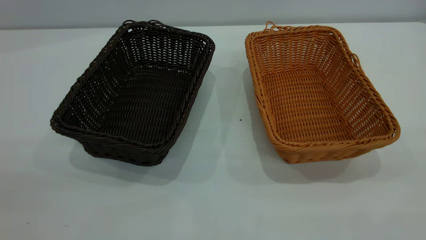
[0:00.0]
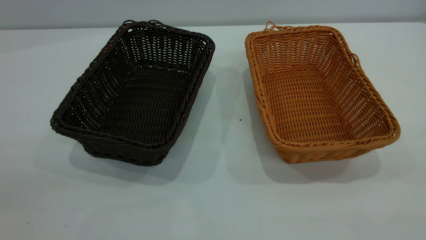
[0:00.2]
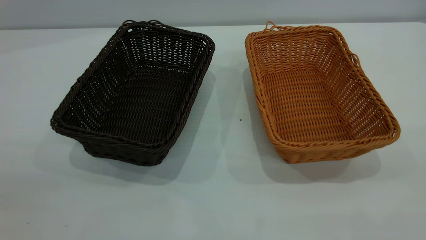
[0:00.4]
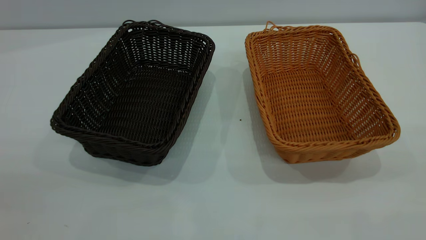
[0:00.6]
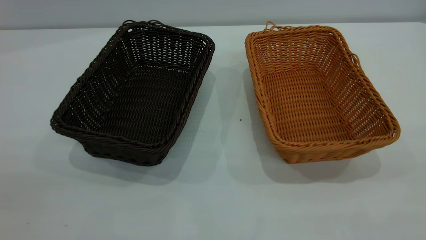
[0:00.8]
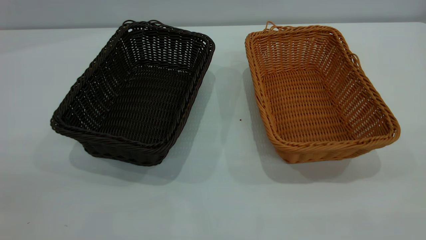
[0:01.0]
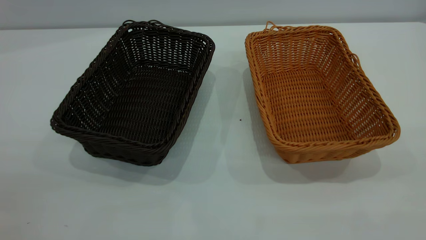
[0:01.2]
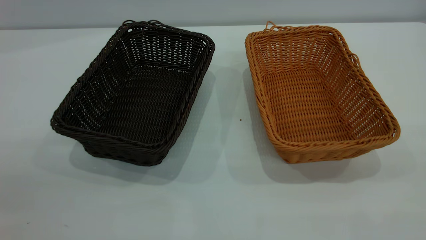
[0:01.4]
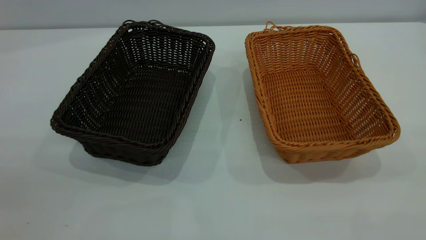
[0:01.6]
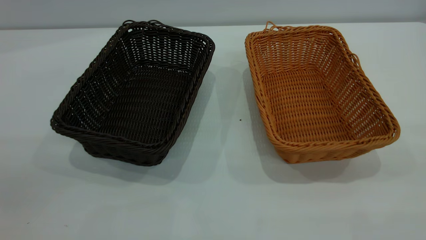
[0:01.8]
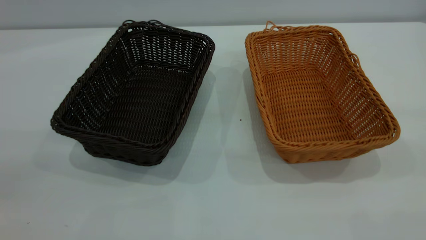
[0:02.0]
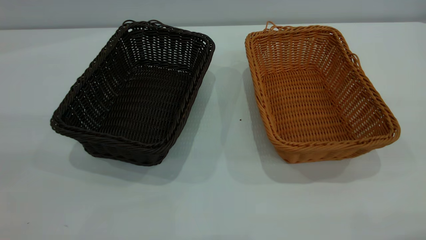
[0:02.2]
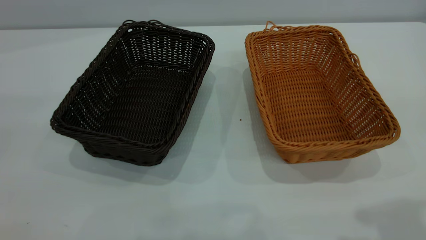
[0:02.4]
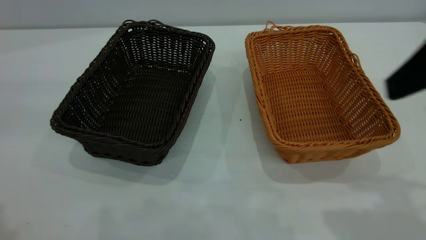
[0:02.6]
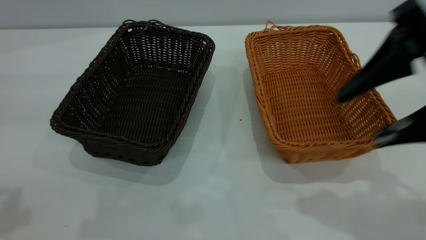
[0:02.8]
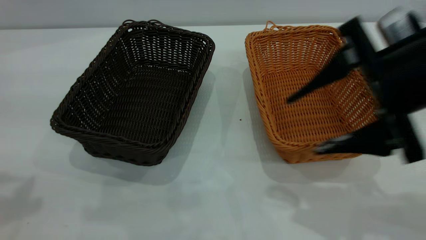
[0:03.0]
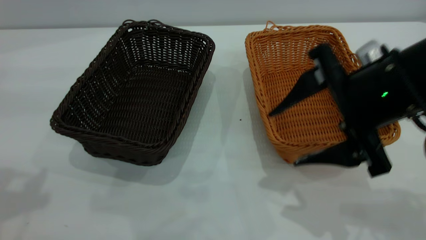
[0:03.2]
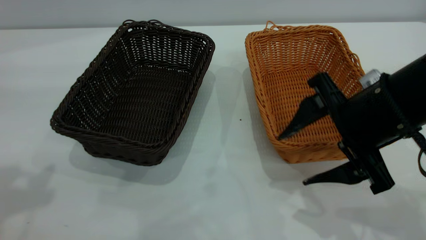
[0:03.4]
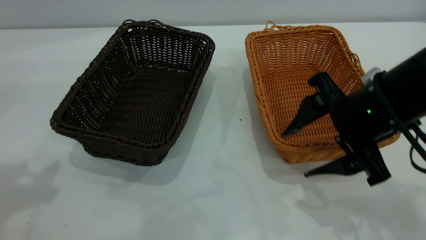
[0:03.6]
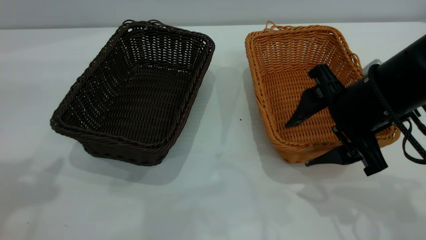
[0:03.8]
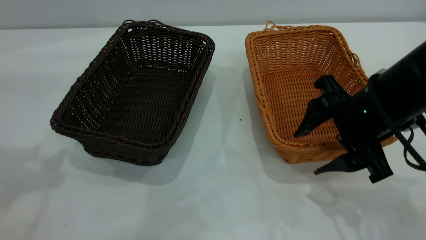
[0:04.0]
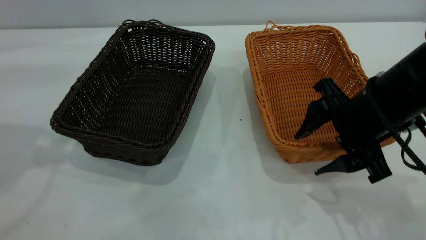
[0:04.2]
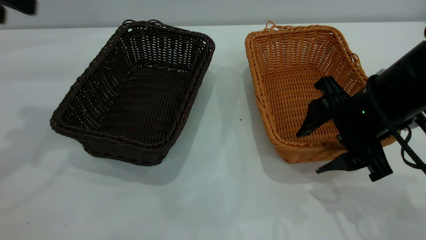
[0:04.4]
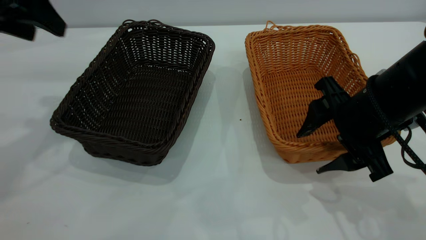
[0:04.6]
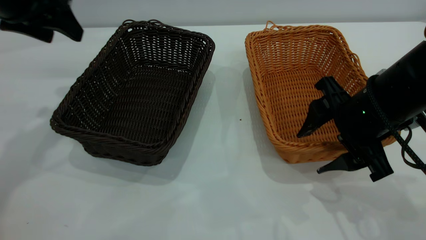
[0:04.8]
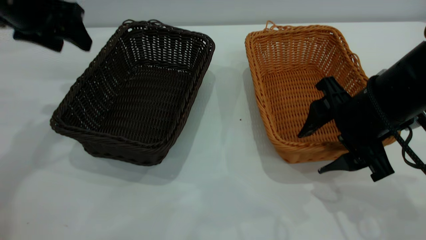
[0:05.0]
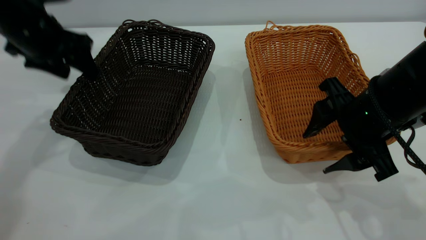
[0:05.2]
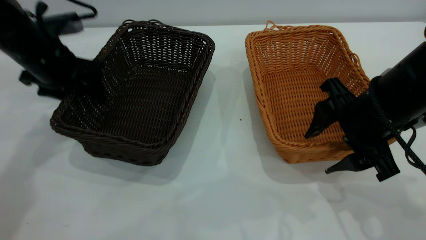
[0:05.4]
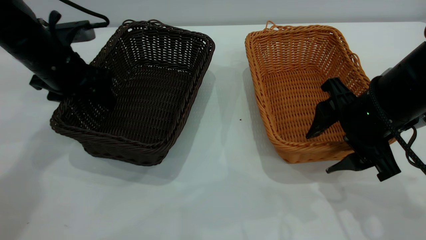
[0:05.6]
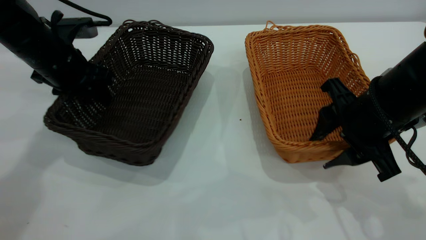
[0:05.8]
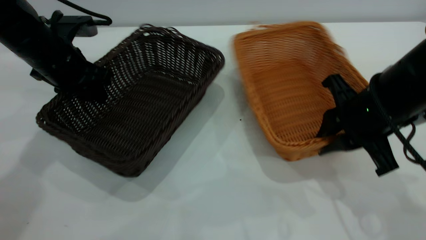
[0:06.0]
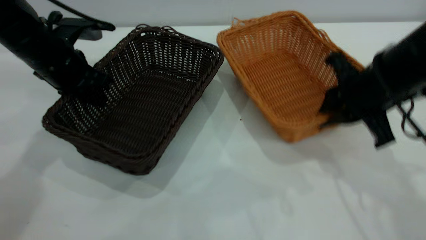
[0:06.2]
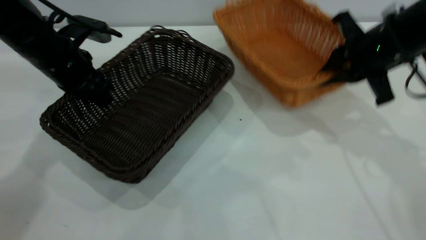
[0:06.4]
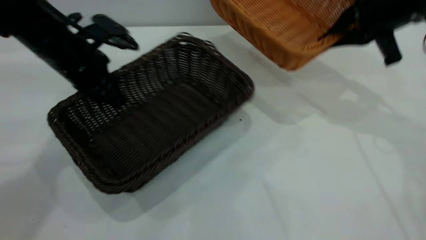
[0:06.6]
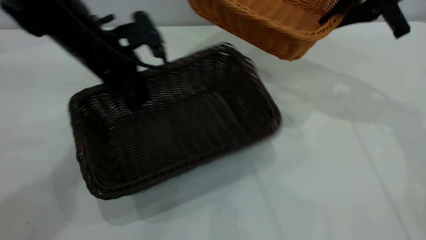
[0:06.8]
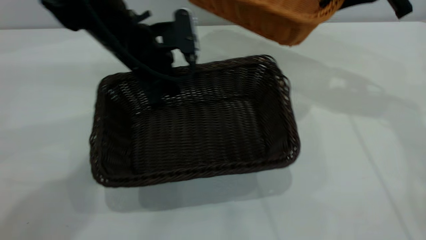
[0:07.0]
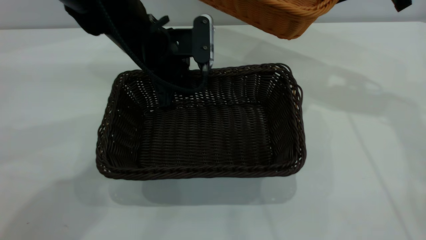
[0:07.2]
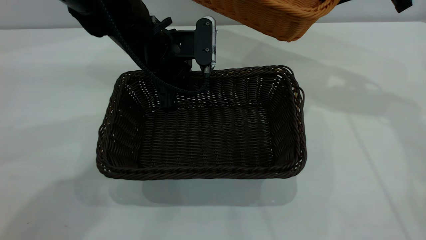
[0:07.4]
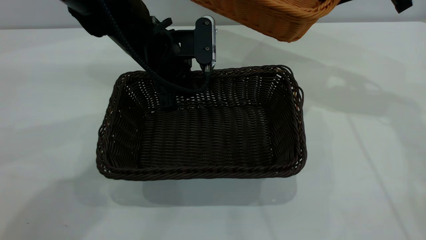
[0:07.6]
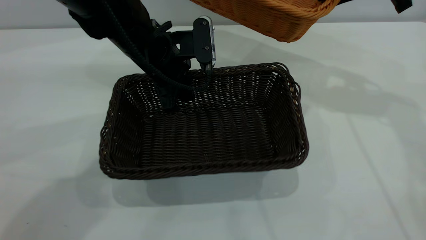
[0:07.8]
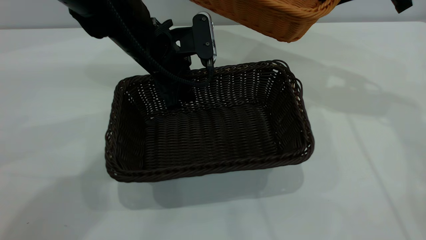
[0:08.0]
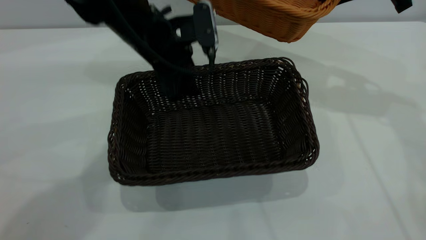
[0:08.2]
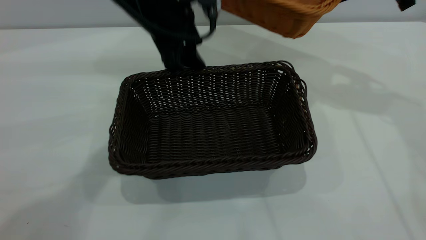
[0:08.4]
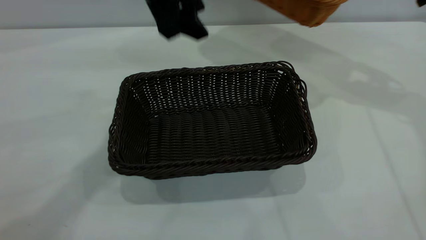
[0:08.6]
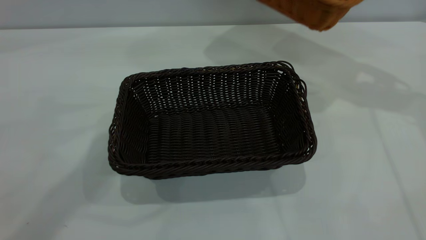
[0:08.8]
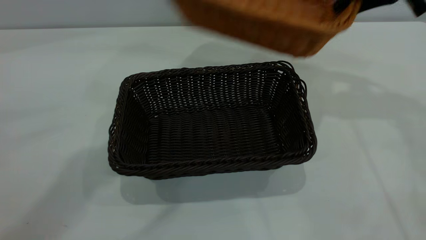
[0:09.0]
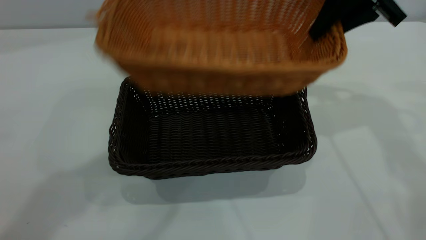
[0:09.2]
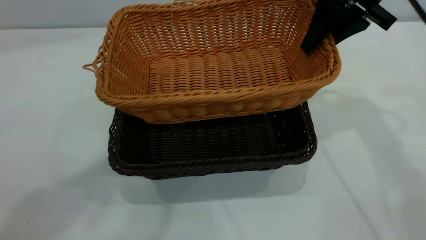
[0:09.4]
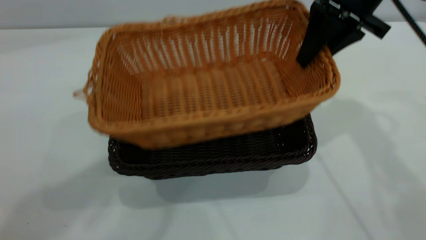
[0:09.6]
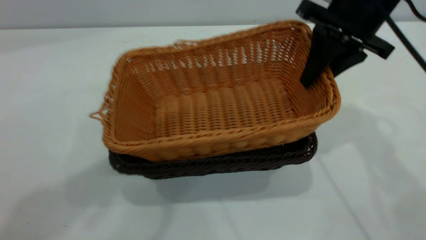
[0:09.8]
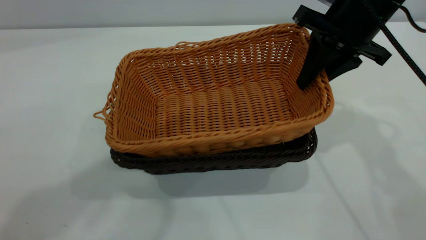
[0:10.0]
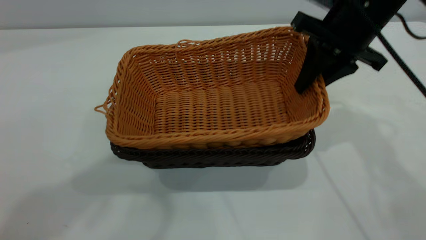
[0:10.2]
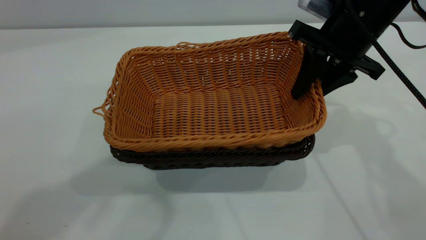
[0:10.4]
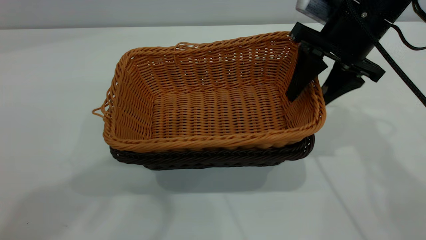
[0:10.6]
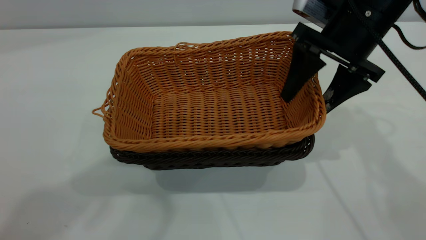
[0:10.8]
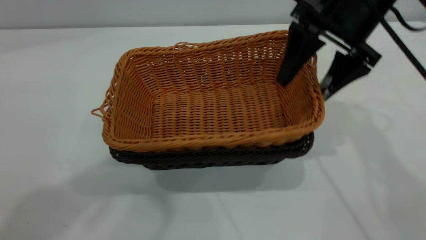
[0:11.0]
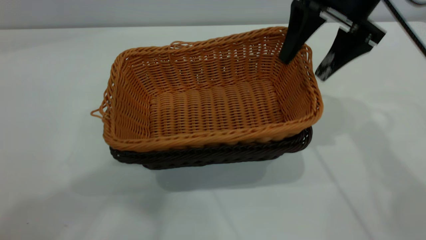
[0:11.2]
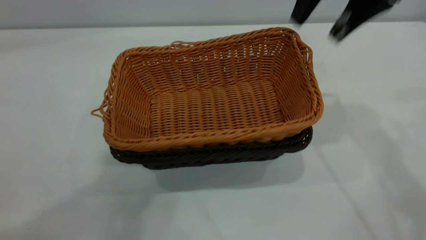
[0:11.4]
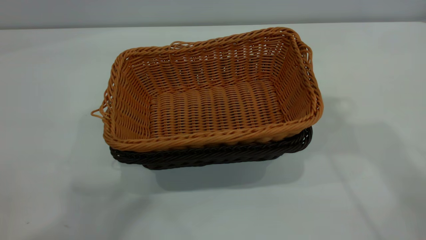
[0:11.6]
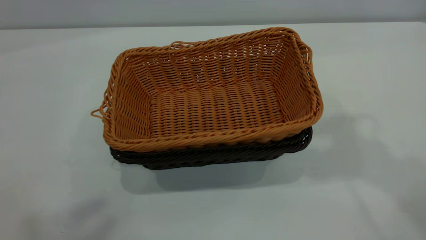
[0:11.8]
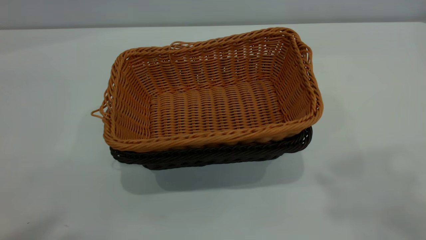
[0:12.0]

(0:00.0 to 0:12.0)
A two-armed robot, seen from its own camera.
Task of the whole recording: the left gripper grasp the black basket and place it in the center of the table, the right gripper grasp the brown basket and place it inside the black one.
Step, 0:00.0 - 0:06.4: Pick up the light basket with the right gripper.
Step, 0:06.6 - 0:08.4: Move the dark basket to the center of view.
Step, 0:08.6 - 0:11.2: Place the light basket on the dark basket.
0:00.0 - 0:01.6: Both grippers stay put.
0:01.6 - 0:03.0: The right gripper is displaced forward, downward and to the left by roughly 30 cm.
0:03.0 - 0:04.4: The left gripper is displaced forward by some 15 cm; the right gripper goes roughly 10 cm downward.
0:04.4 - 0:06.0: The left gripper travels downward by roughly 15 cm, and closes its fingers. The right gripper closes its fingers.
0:06.0 - 0:07.6: The left gripper heads to the right, covering some 15 cm. The right gripper heads forward and upward, covering some 20 cm.
0:07.6 - 0:09.0: The left gripper goes roughly 30 cm upward, and opens.
0:09.0 - 0:10.4: The right gripper moves downward and to the left, approximately 10 cm, while the left gripper goes about 10 cm upward and backward.
0:10.4 - 0:12.0: The right gripper is displaced upward and backward by roughly 40 cm, and opens up. The left gripper shifts roughly 20 cm backward, to the left and upward.

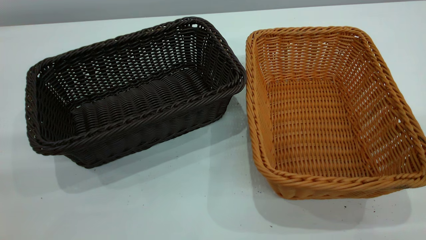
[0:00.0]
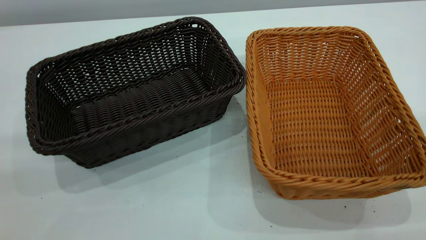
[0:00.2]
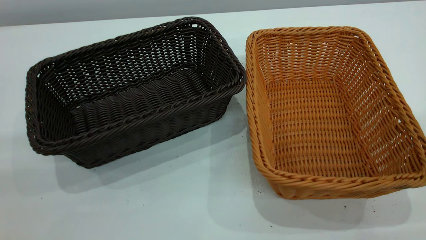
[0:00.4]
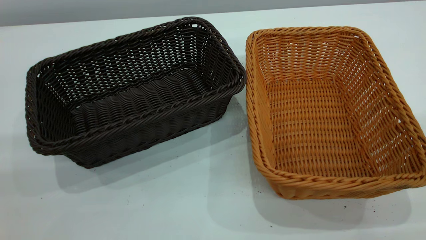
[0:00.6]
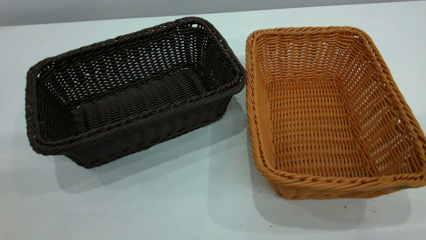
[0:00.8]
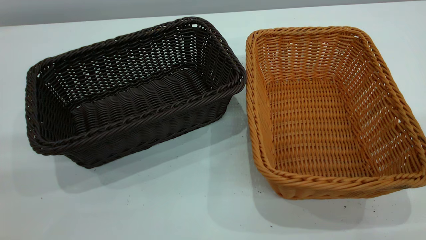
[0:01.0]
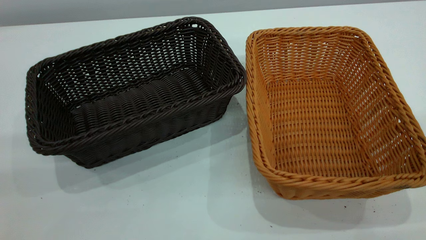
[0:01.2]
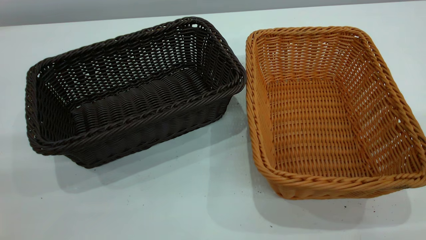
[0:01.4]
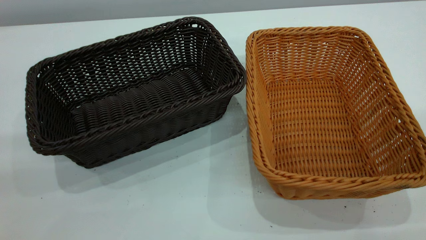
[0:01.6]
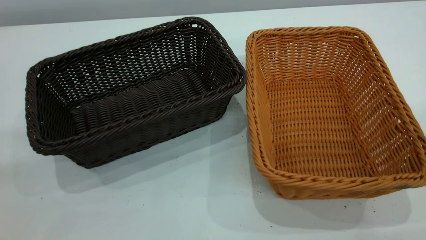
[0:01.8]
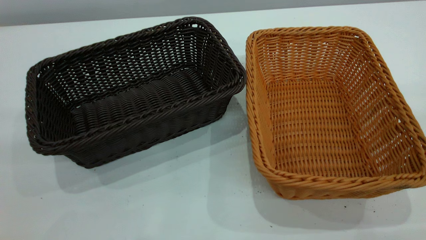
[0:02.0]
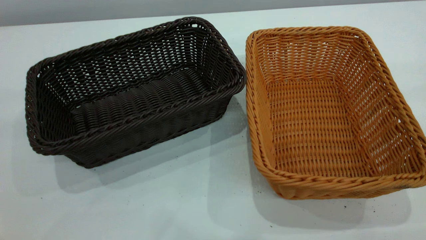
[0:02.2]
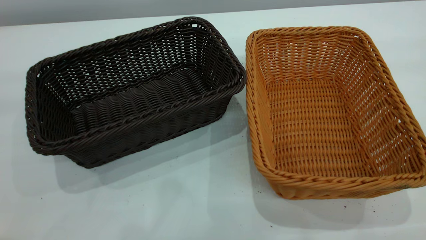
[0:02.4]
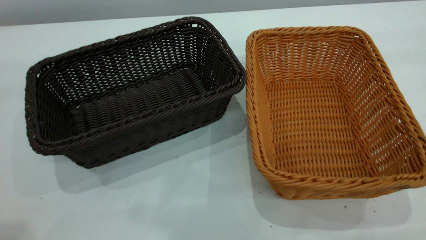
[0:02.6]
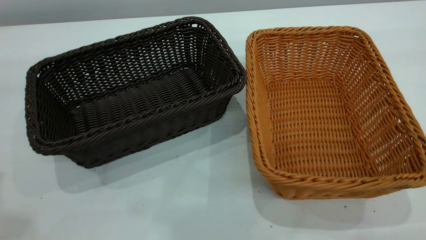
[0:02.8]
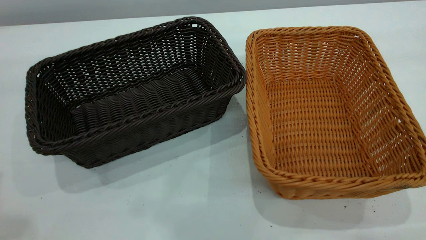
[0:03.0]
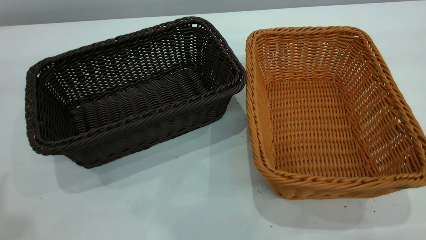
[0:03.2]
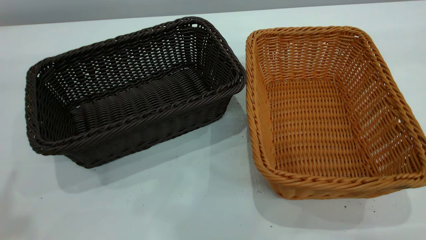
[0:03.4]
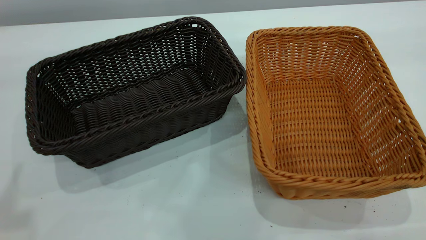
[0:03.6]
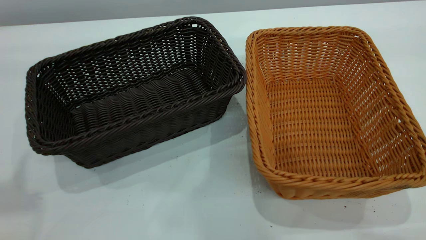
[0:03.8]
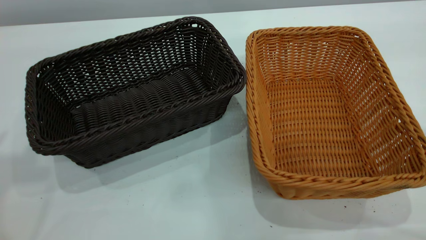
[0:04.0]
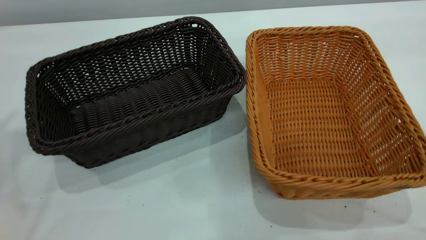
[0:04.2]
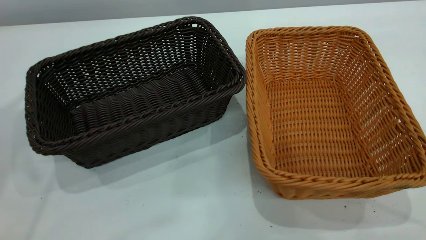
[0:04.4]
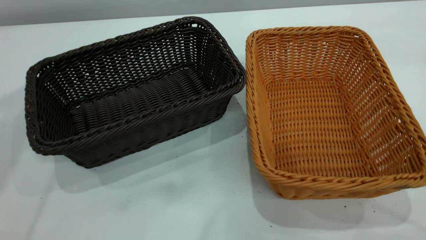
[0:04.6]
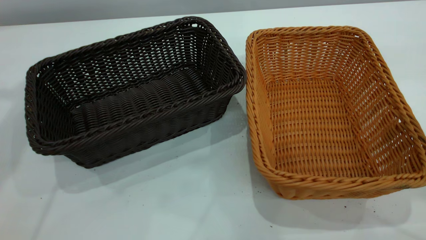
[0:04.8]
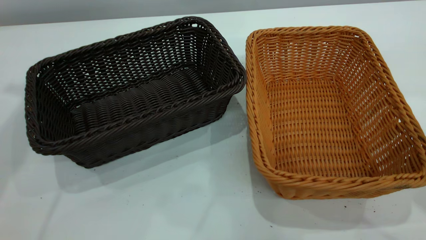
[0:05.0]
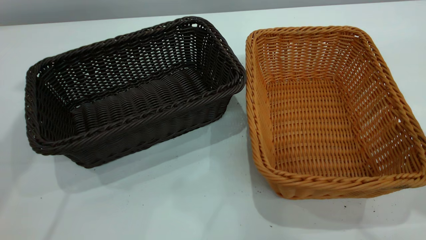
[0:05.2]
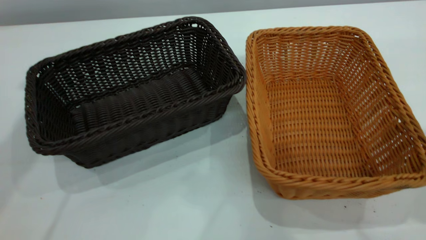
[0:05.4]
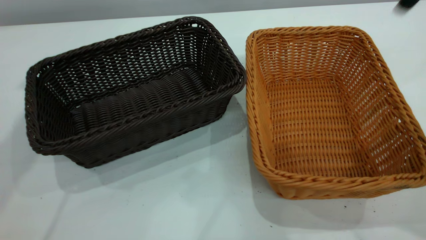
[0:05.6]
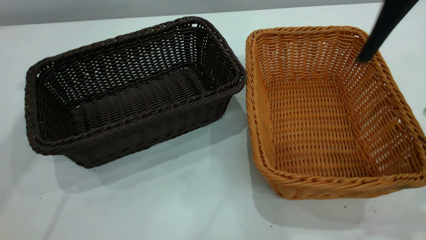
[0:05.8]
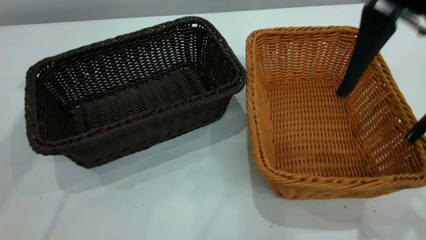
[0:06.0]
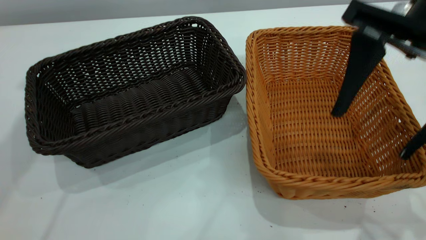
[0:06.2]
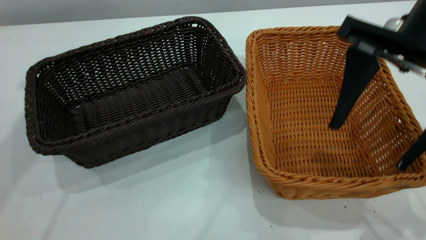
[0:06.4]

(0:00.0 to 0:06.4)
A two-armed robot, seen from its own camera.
Task of the whole recording: the left gripper grasp the black basket and place it in the center of the table, the right gripper grasp the brown basket and place it inside the black one.
0:04.8 - 0:06.4: The right gripper shifts roughly 20 cm downward and to the left.
